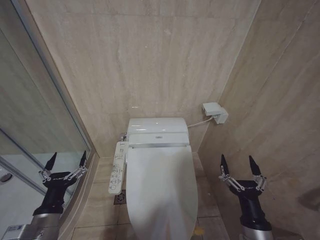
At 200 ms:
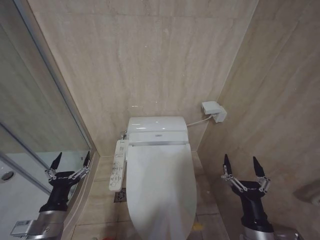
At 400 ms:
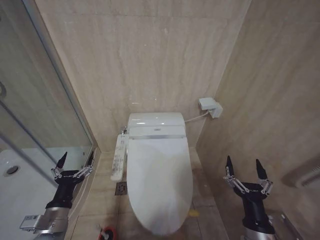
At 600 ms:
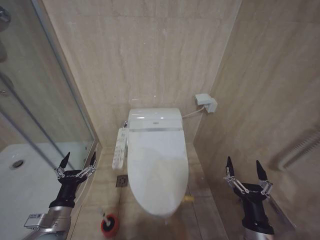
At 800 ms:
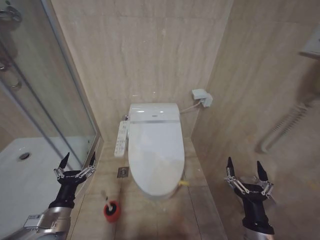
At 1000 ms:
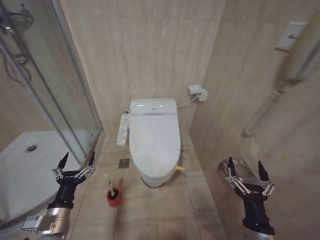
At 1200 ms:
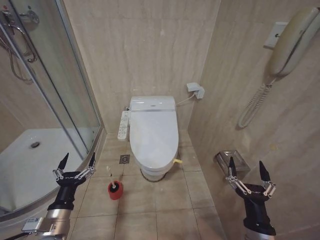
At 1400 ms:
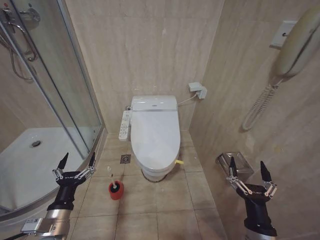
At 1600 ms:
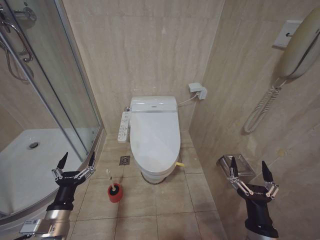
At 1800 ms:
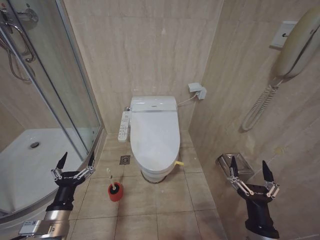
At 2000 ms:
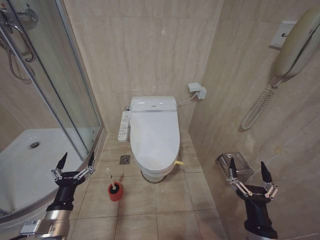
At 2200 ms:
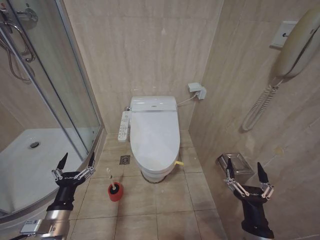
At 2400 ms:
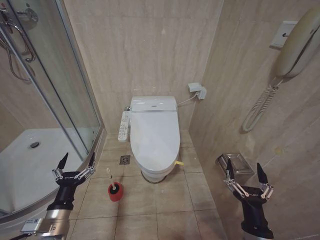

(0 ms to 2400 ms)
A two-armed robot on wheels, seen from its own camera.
Task of the whole recording: Open the toilet lid, clean the toilet bowl with a toilet brush, close the toilet lid, and flush.
1200 ms - 2400 ms: The two grippers keep their place.
